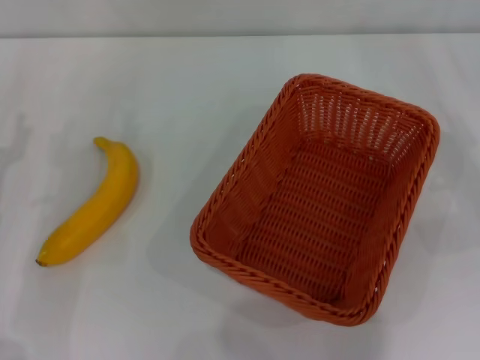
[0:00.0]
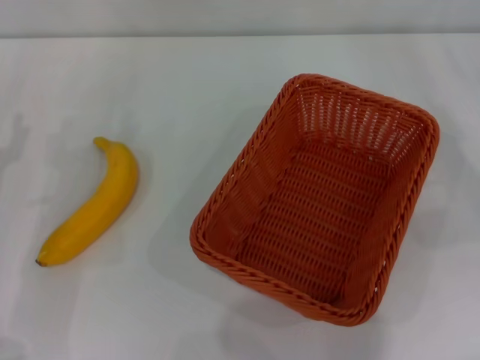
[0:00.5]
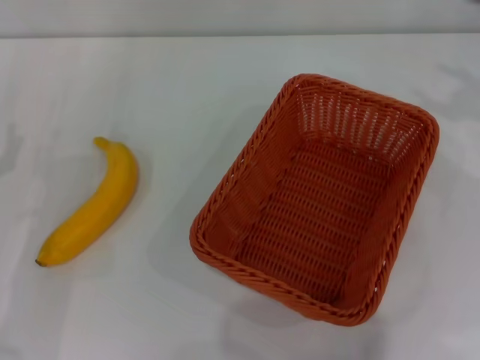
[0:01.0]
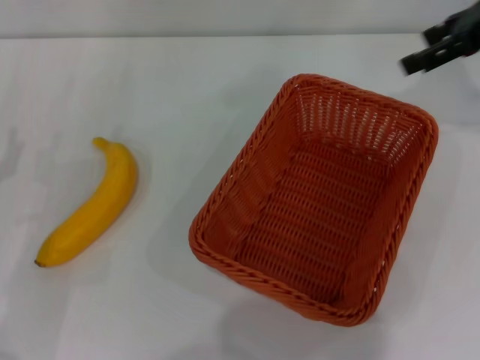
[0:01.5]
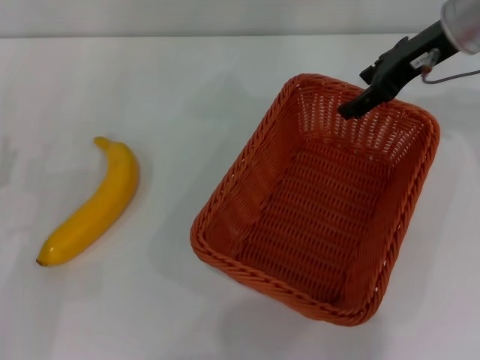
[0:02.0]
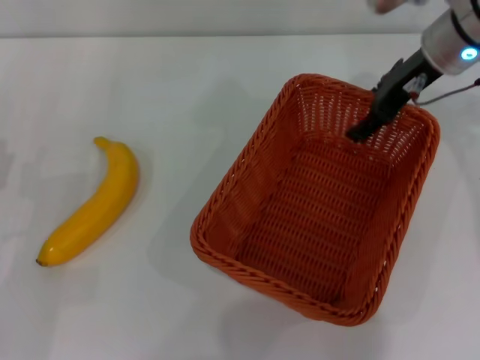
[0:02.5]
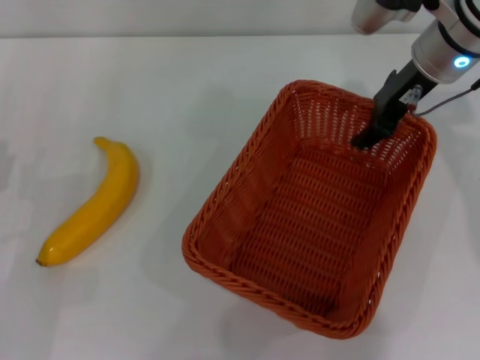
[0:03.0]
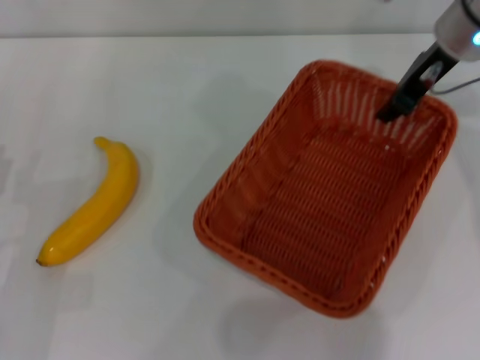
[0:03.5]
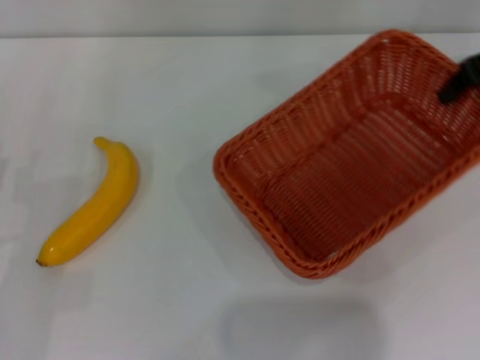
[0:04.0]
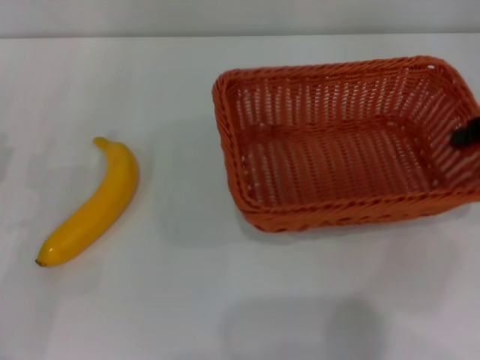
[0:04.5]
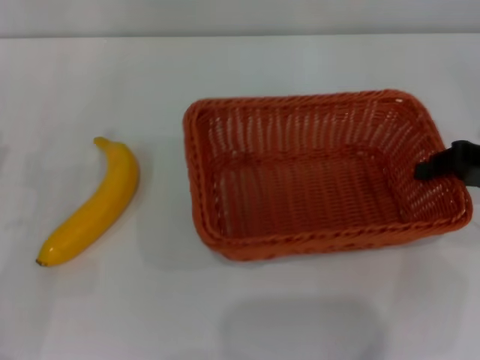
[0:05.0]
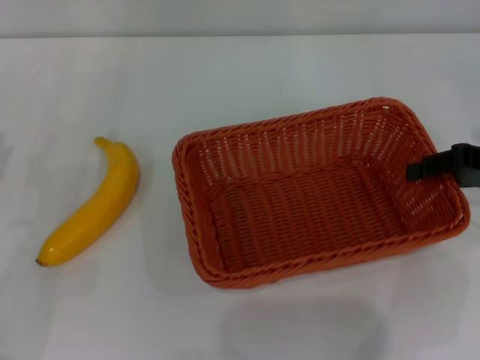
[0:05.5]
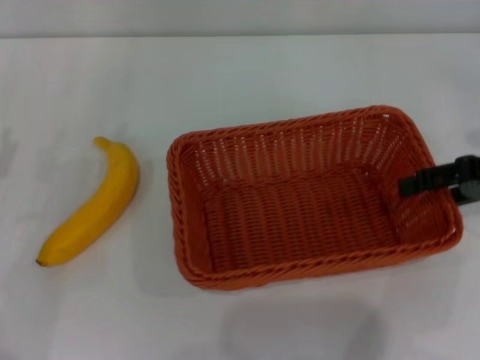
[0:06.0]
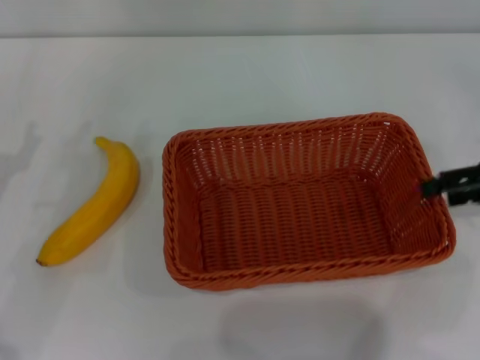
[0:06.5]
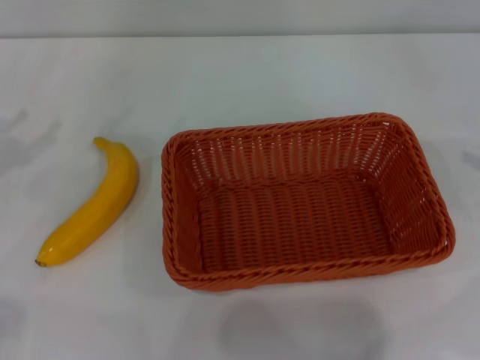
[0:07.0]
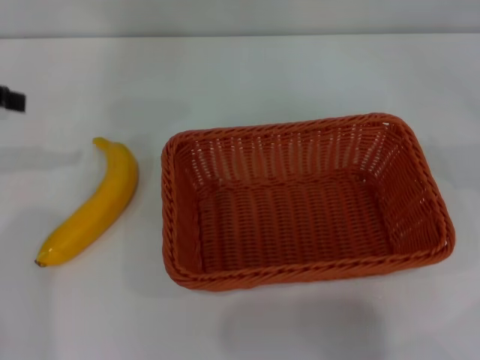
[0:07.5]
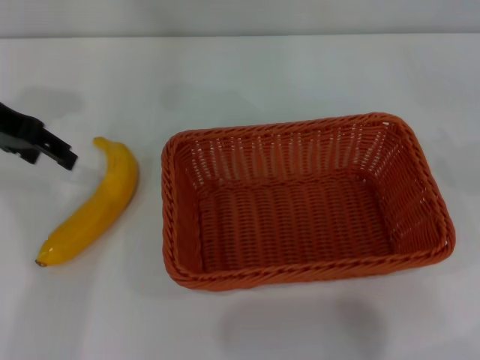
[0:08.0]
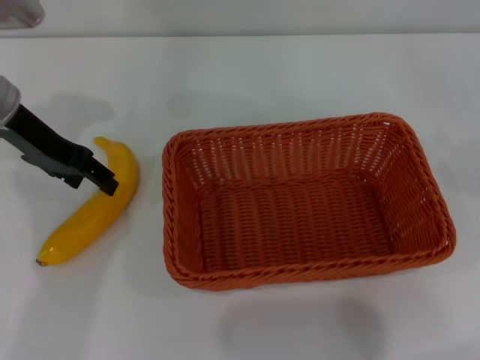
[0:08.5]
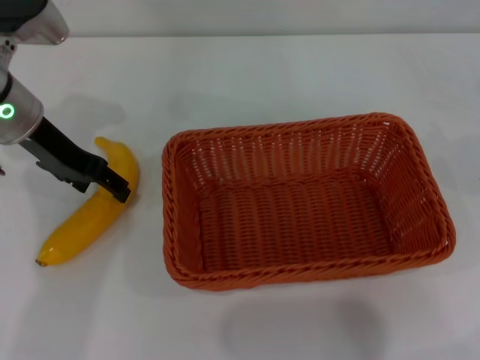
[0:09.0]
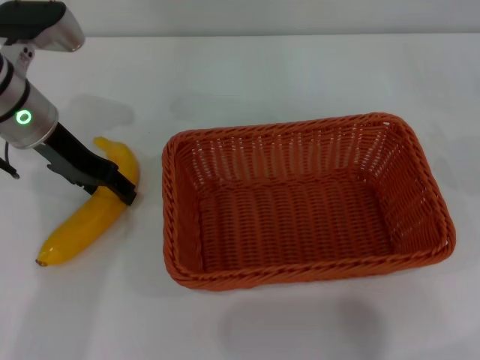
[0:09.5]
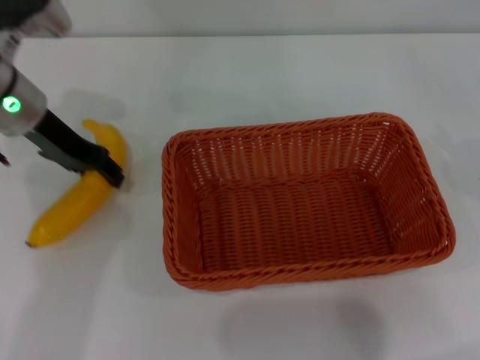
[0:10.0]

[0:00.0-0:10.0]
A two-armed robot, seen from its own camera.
Step, 0:00.0 to 0:03.5: Pick up the light basket with the right gripper.
Step, 0:04.0 to 0:06.5: Place the light basket in the center of view with the right gripper.
0:00.0 to 0:02.0: The right gripper goes about 25 cm to the left, forward and upward.
0:02.0 to 0:04.0: The right gripper moves to the right, roughly 10 cm, and closes.
0:04.0 to 0:06.0: The right gripper heads backward and downward, covering approximately 15 cm, and opens.
0:06.0 to 0:08.0: The left gripper heads upward and forward, covering roughly 20 cm; the right gripper heads to the right, covering approximately 15 cm, and opens.
0:08.0 to 0:10.0: The left gripper heads downward, covering roughly 5 cm, and closes up.

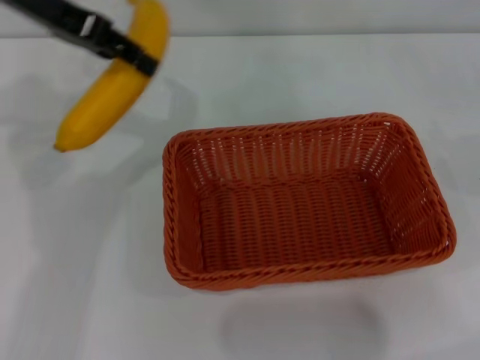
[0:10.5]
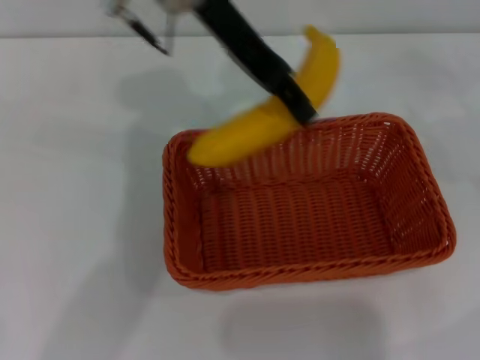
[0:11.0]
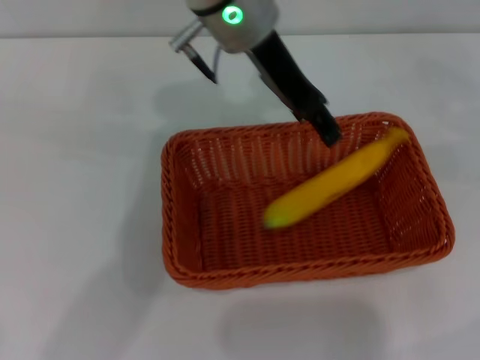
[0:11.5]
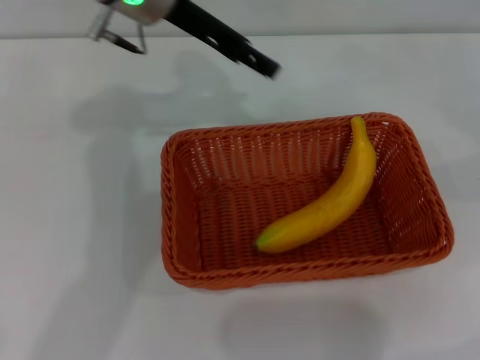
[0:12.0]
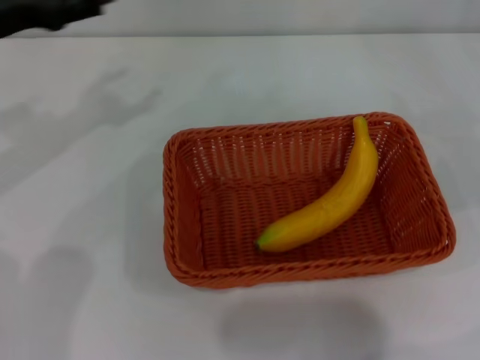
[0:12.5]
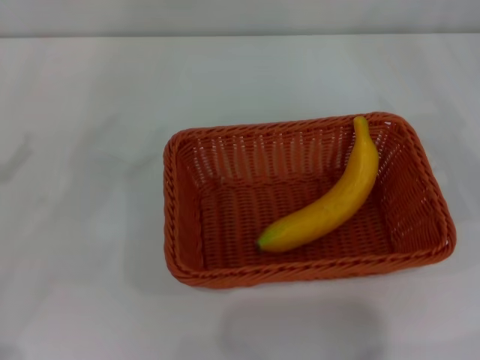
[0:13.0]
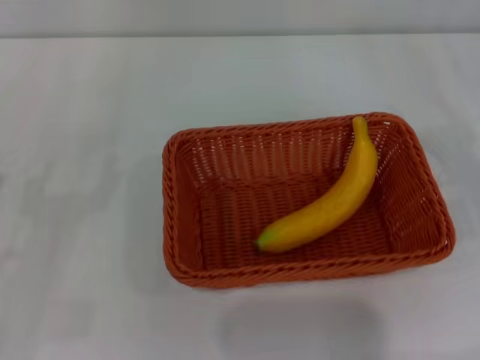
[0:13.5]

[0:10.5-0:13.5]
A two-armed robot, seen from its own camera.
Step, 0:10.5 to 0:11.5: Place the banana into the light basket with the left gripper.
0:10.5 to 0:12.0: The left gripper is displaced to the right and downward by approximately 10 cm, and opens.
0:12.0 to 0:13.5: The right gripper moves downward and to the left, some 10 cm. The left gripper heads backward, to the left and downward, covering roughly 40 cm.

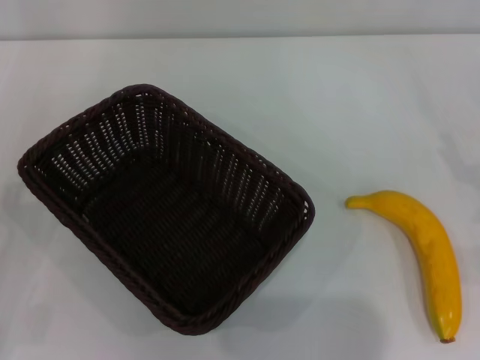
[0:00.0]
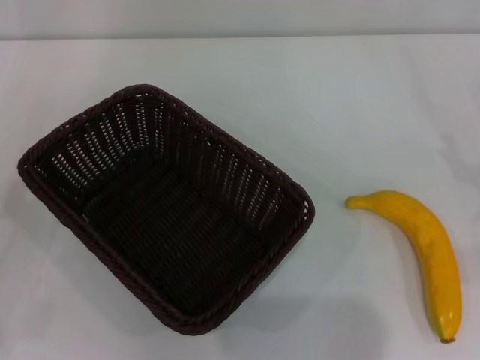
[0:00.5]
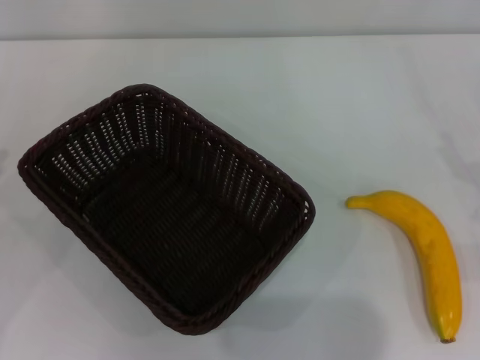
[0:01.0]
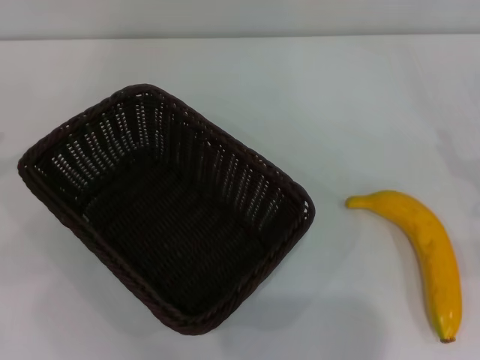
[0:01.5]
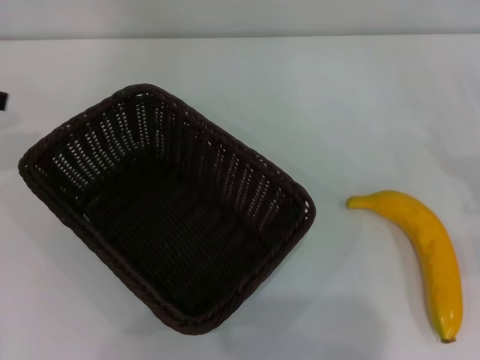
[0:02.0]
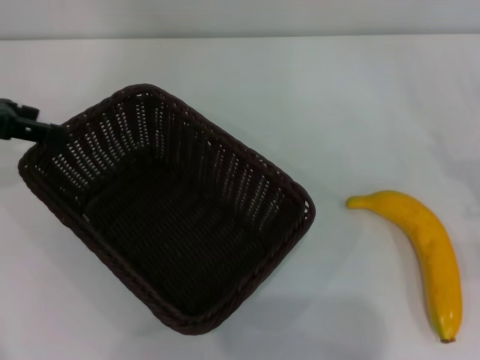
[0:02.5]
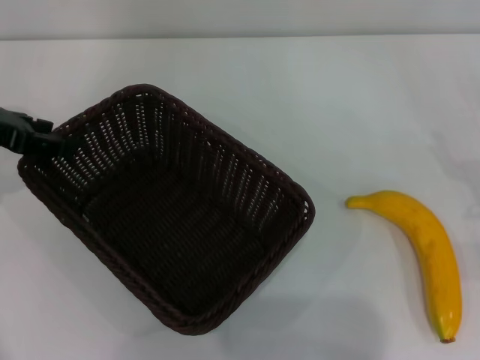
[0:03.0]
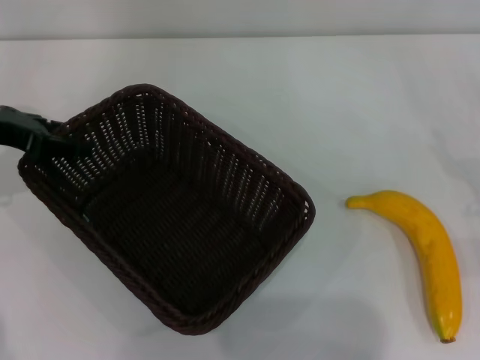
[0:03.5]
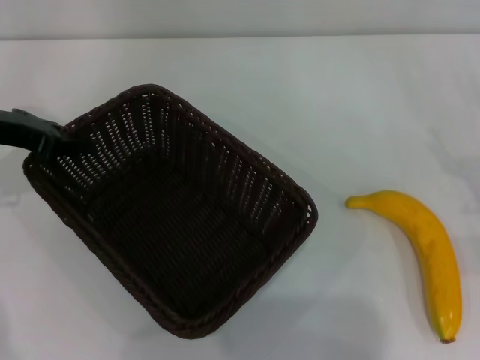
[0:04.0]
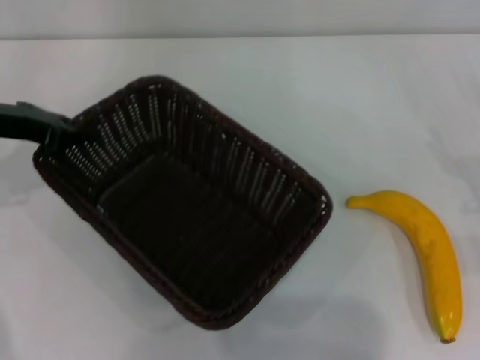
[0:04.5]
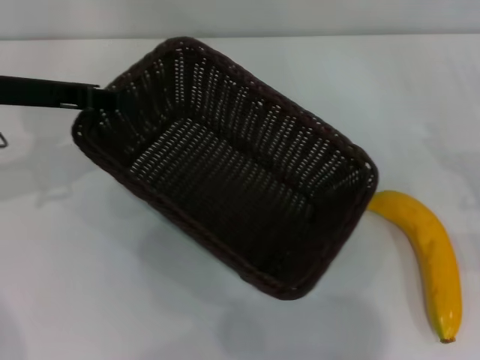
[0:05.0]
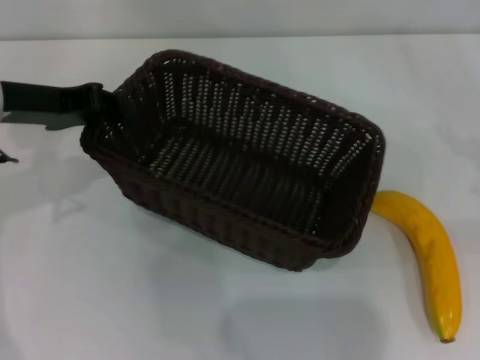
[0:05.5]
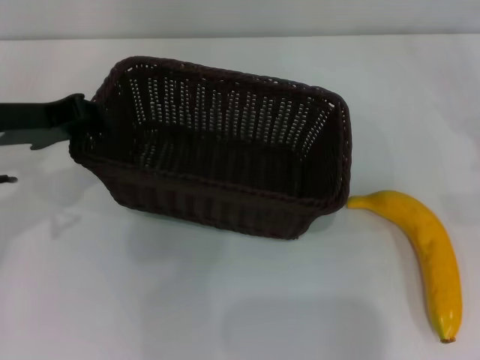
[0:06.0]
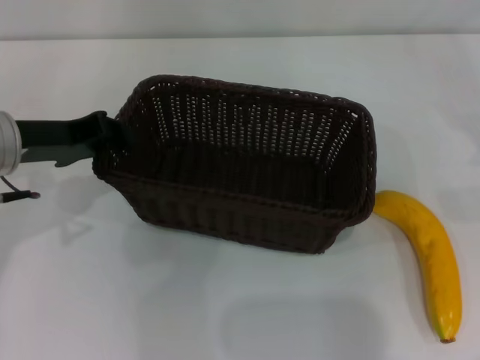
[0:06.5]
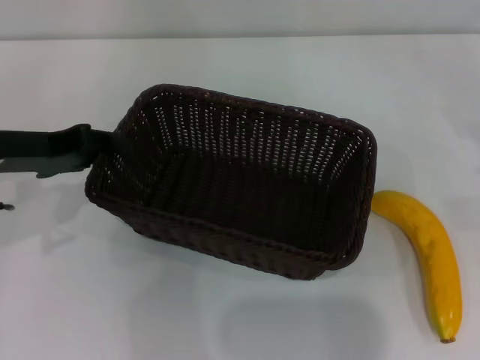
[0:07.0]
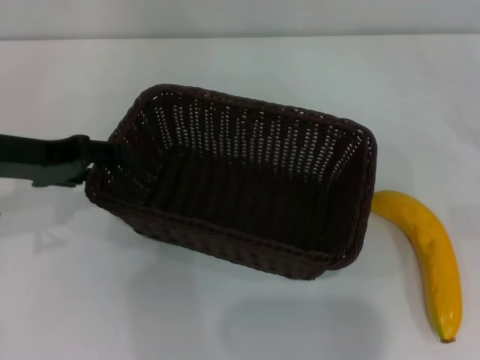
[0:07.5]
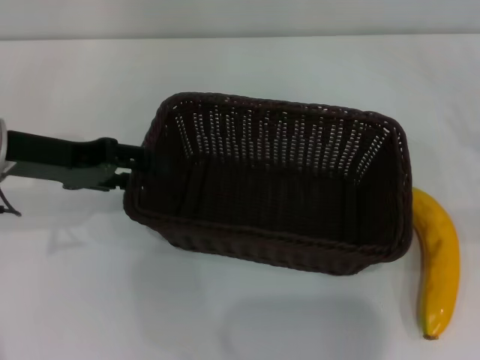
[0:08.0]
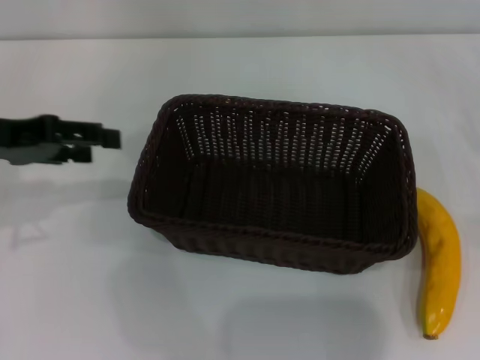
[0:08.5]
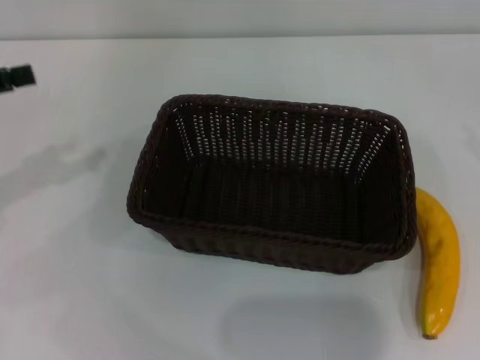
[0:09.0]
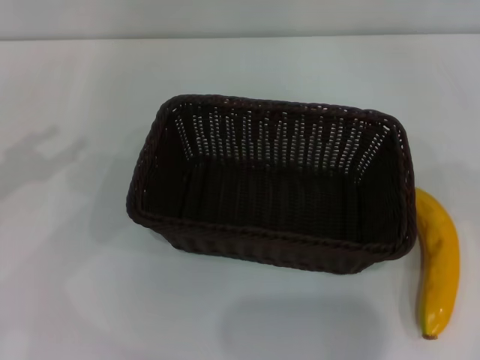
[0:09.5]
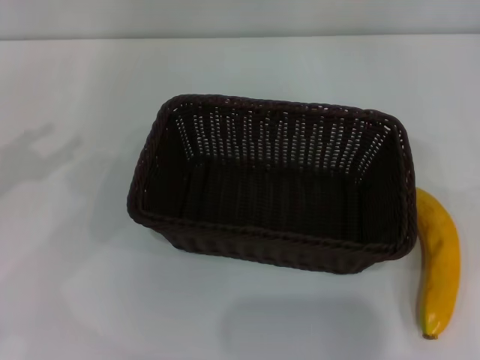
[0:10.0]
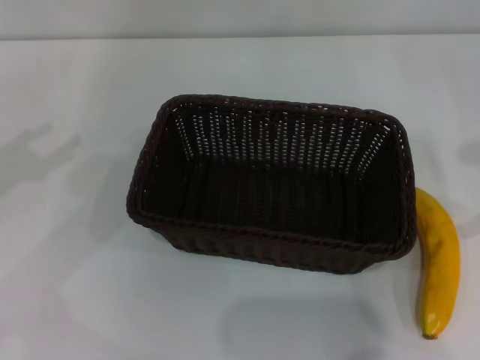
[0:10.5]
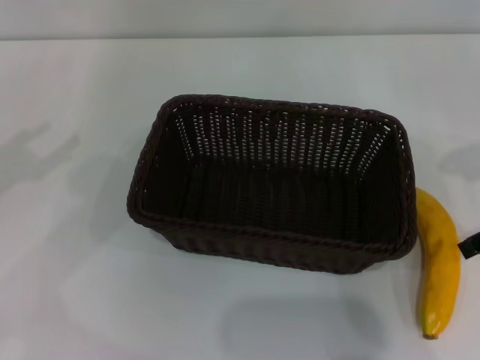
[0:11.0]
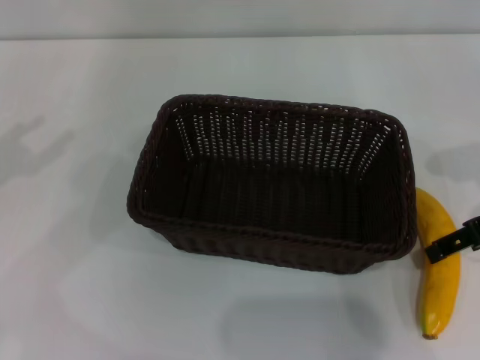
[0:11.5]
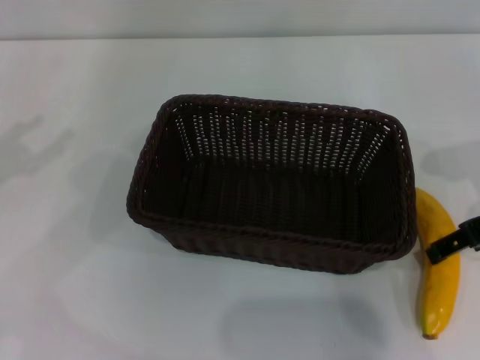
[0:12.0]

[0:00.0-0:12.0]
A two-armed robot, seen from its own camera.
Step, 0:00.0 to 0:04.5: Pick up the dark basket with the left gripper.
Step, 0:05.0 to 0:08.5: Place the dark basket in the center of view with the left gripper.
0:00.0 to 0:02.0: The left gripper moves upward and forward, roughly 25 cm.
0:02.0 to 0:04.0: The left gripper heads downward and to the right, covering roughly 10 cm.
0:04.0 to 0:06.0: The right gripper goes about 10 cm to the right and upward. Meanwhile the left gripper changes place by some 5 cm, and closes.
0:06.0 to 0:08.0: The left gripper opens up.
0:08.0 to 0:10.0: The right gripper goes roughly 15 cm upward. The left gripper goes roughly 15 cm to the left.
0:10.0 to 0:12.0: The right gripper is displaced to the left and downward by approximately 15 cm.
